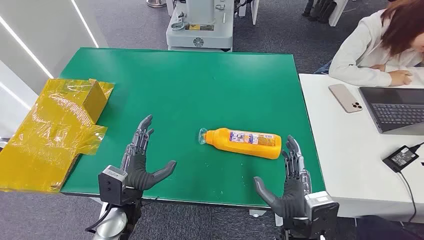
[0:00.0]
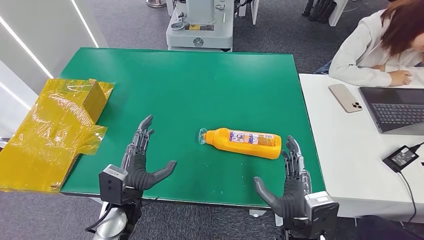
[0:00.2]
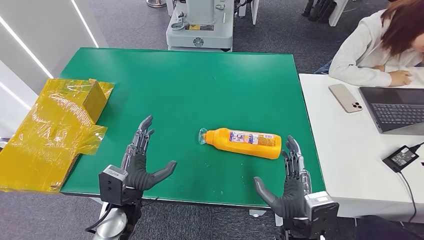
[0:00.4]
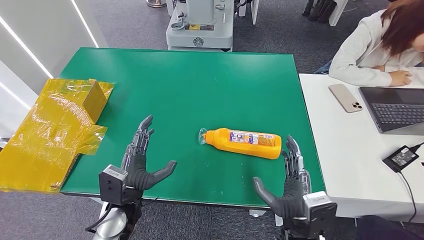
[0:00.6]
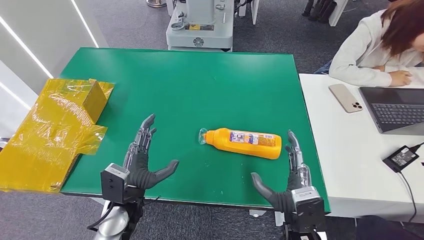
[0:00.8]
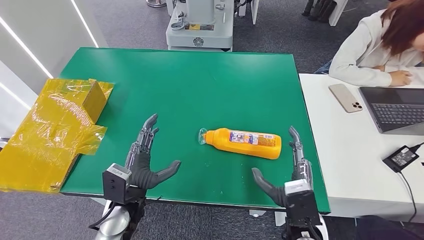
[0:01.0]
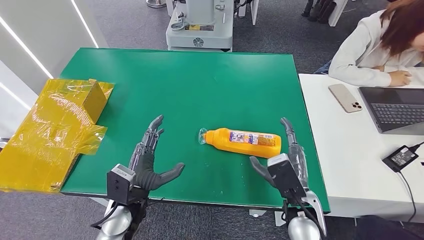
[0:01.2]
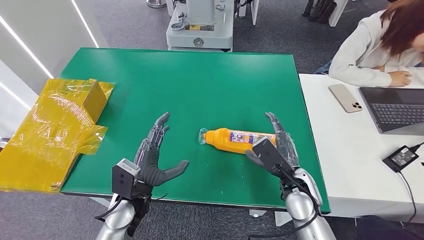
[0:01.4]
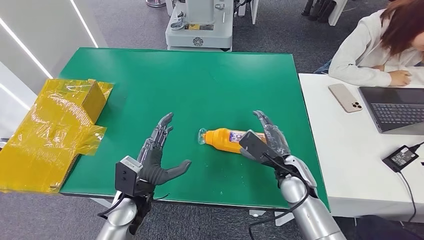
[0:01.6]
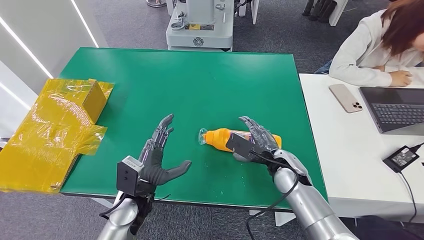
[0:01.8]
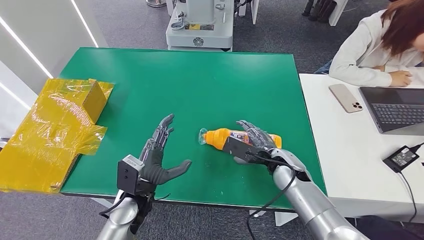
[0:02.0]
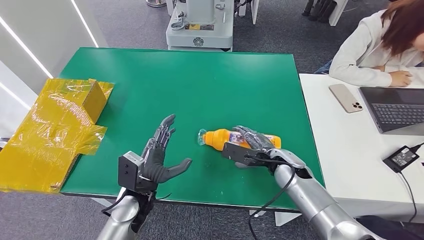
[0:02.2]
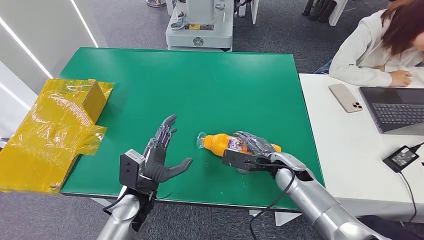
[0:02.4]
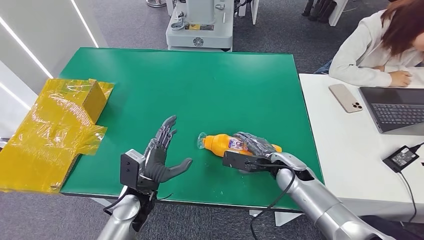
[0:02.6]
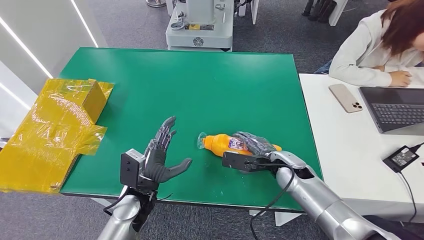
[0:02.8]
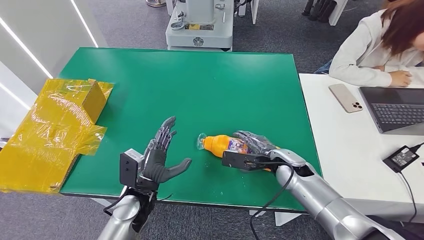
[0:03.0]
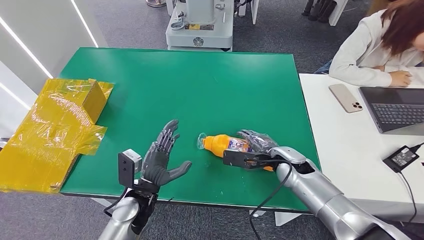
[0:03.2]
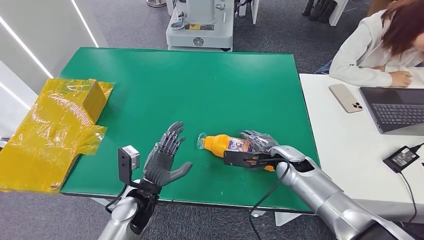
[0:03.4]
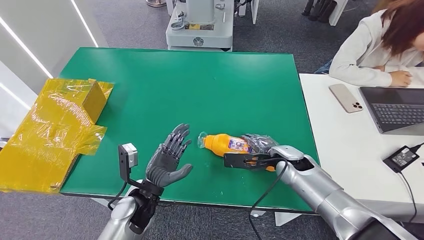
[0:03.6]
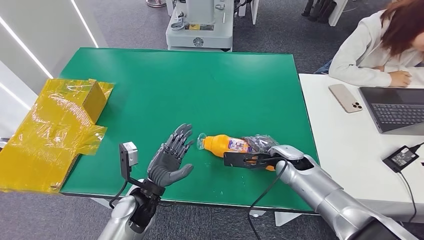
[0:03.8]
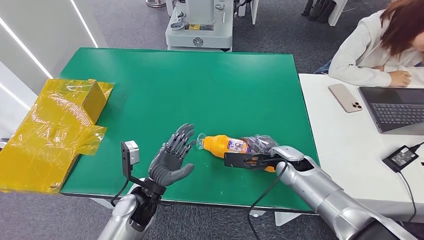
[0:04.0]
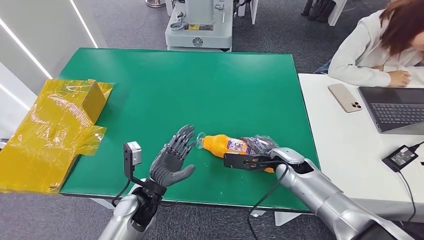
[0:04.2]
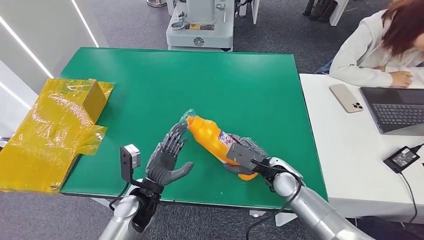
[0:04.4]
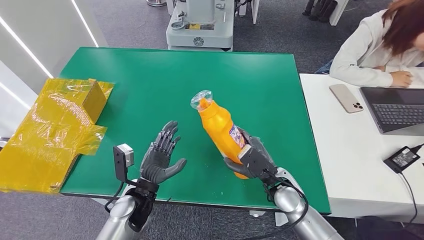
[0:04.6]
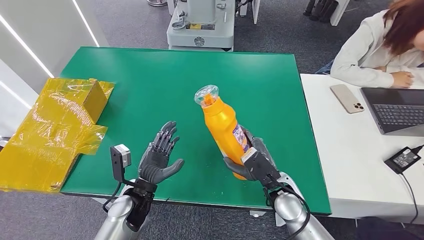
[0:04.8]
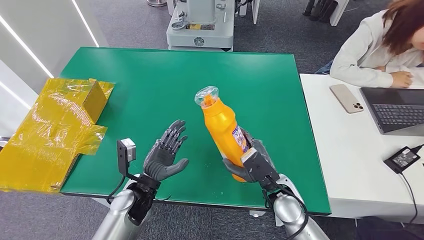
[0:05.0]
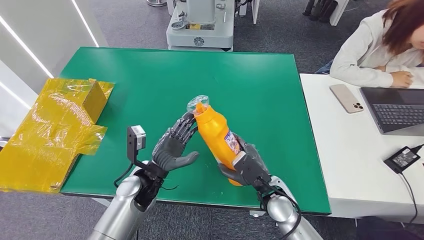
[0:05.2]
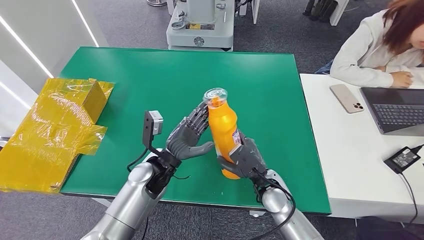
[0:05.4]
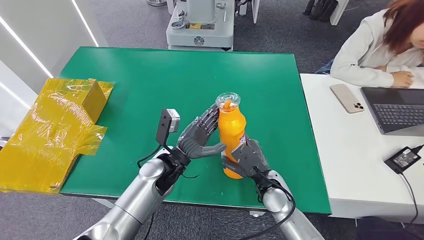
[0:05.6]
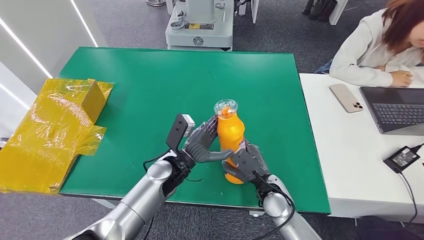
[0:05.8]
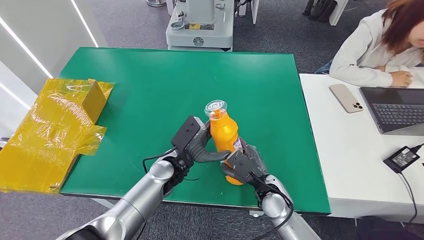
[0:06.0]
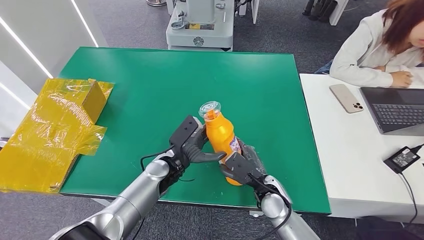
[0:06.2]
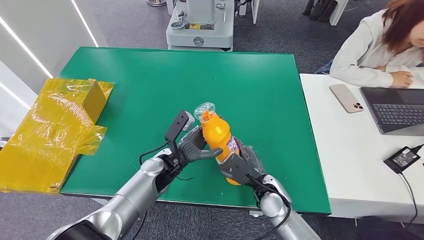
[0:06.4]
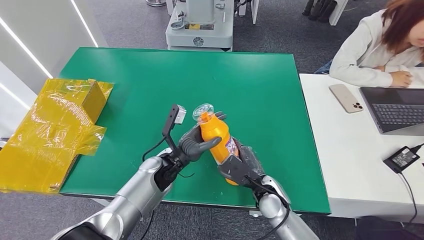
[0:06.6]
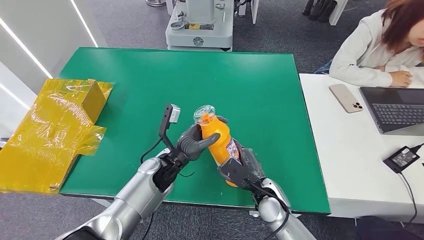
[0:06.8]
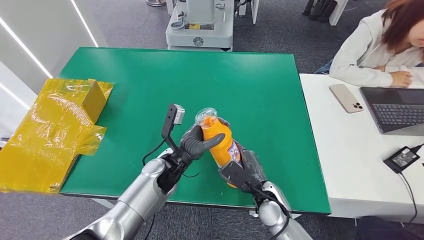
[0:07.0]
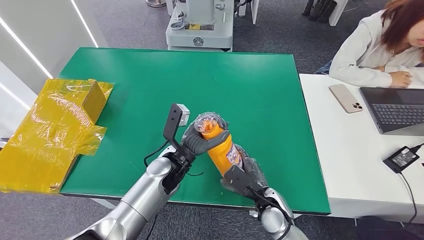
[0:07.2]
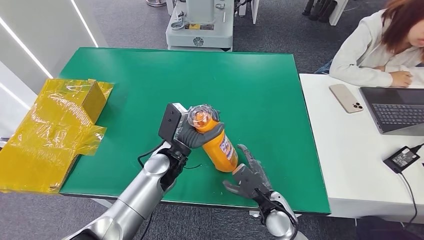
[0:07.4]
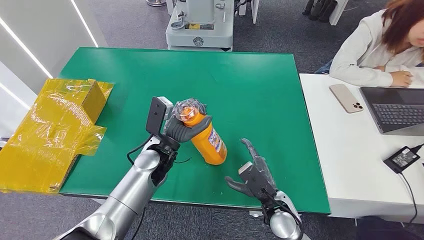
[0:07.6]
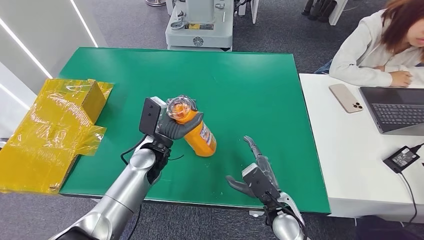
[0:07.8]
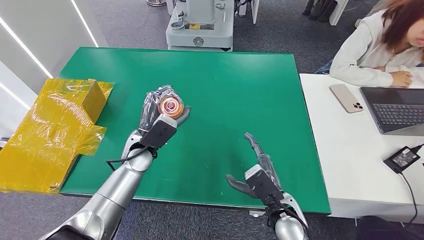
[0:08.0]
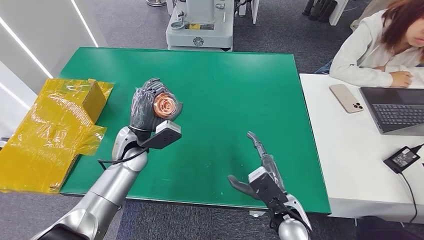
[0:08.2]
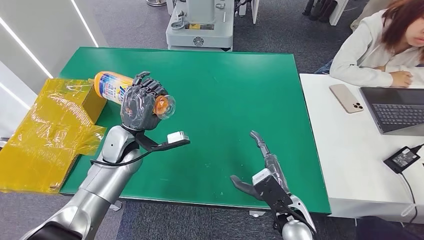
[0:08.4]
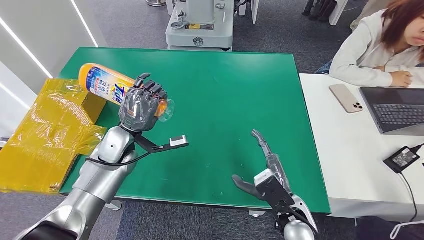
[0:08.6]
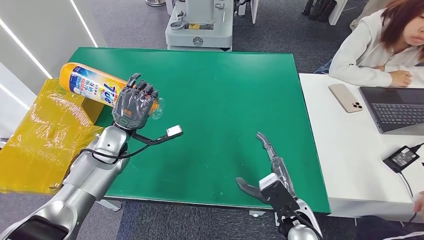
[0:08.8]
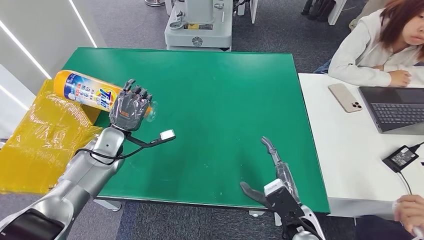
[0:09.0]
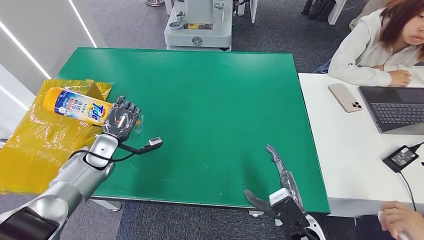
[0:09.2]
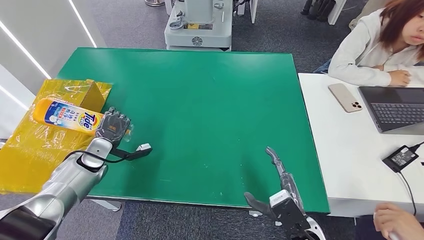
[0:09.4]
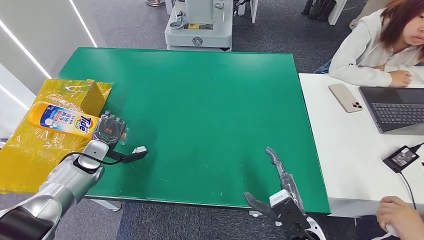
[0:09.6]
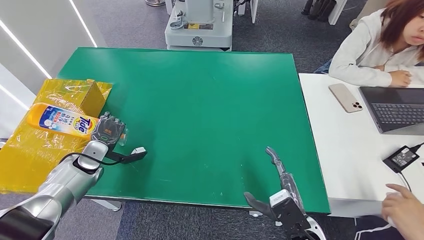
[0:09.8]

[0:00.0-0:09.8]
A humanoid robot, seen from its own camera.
Step, 0:00.0 to 0:05.2: Pick up the bottle from the table.
0:01.4 to 0:02.8: The right hand heads forward, covering approximately 5 cm.
0:04.2 to 0:05.6: The right hand heads backward and to the left, covering approximately 10 cm. Meanwhile the left hand shifts some 10 cm forward and to the right.
0:05.6 to 0:07.0: There are only small adjustments of the hands.
0:07.0 to 0:08.4: The left hand moves to the left, approximately 10 cm. Meanwhile the right hand ends up some 5 cm from where it was.

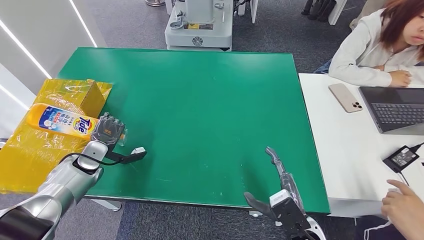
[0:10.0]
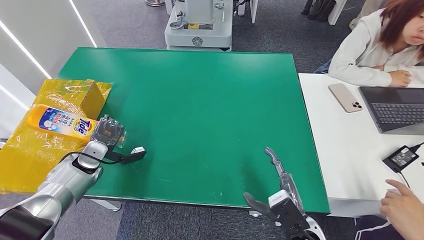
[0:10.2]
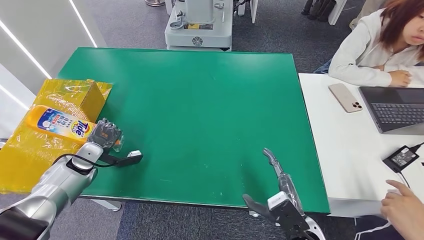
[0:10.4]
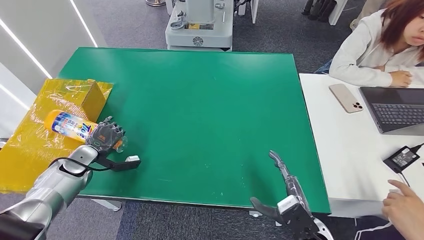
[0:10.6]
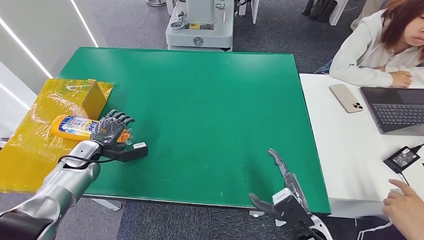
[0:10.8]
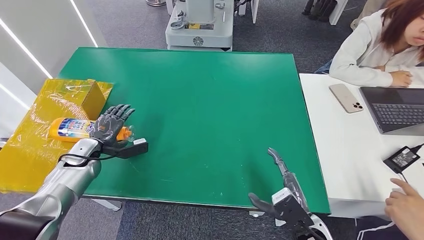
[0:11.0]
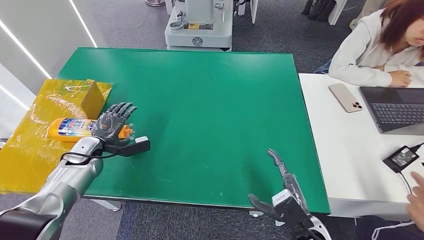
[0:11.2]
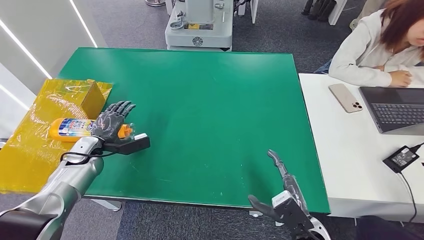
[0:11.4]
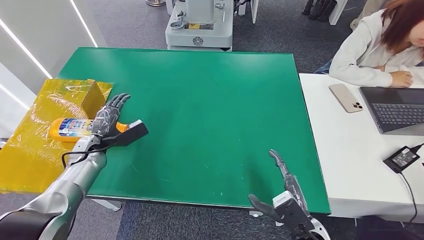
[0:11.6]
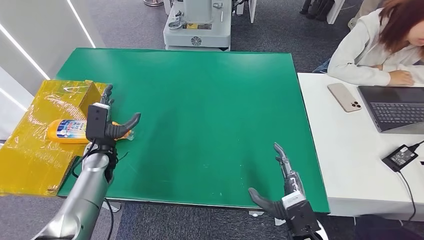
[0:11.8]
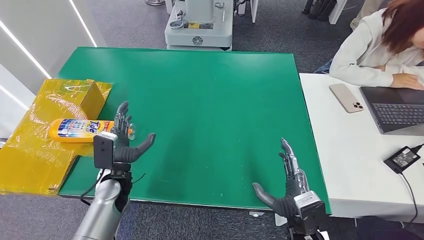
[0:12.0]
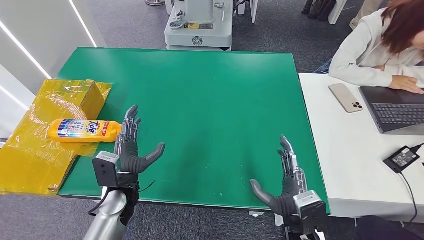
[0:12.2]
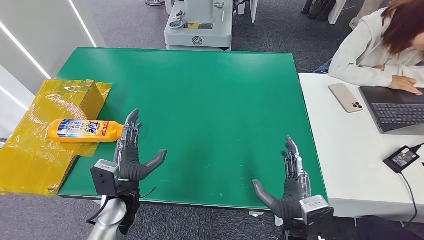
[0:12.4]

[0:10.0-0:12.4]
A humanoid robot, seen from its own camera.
Step, 0:10.0 to 0:12.4: Turn the bottle to the front side.
0:11.2 to 0:12.4: The right hand shifts by about 5 cm, while the left hand shifts roughly 20 cm to the right and backward.

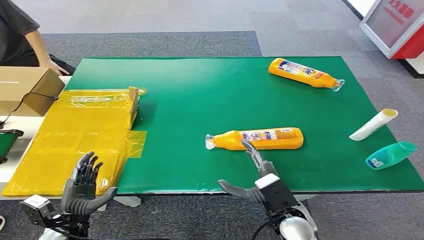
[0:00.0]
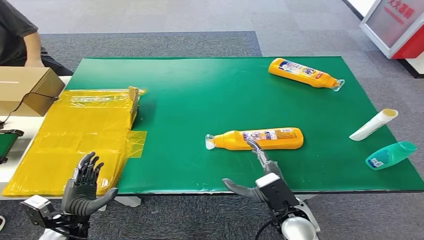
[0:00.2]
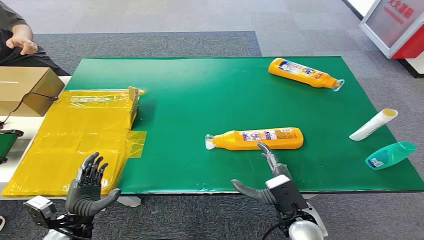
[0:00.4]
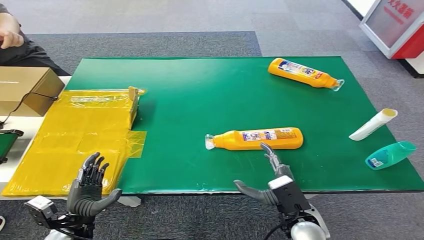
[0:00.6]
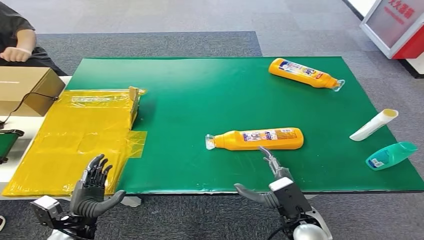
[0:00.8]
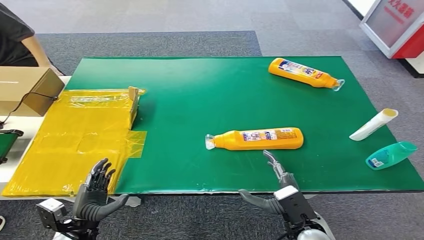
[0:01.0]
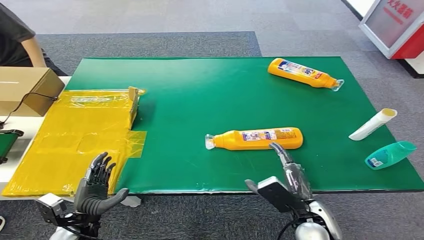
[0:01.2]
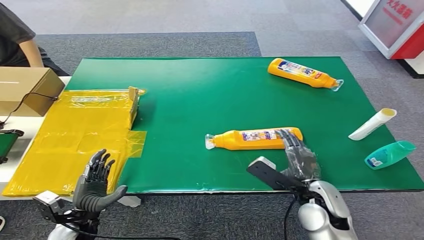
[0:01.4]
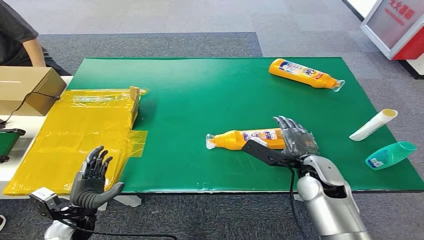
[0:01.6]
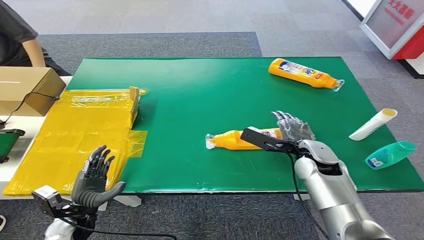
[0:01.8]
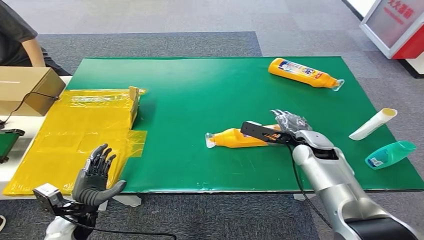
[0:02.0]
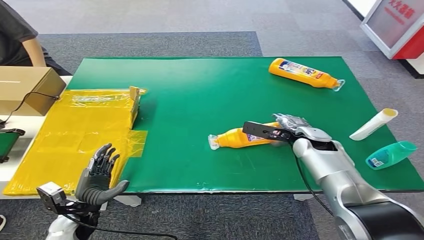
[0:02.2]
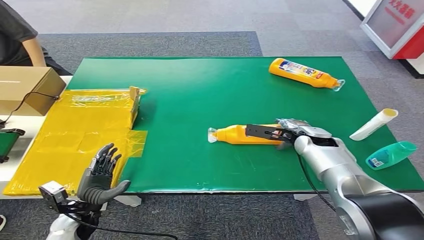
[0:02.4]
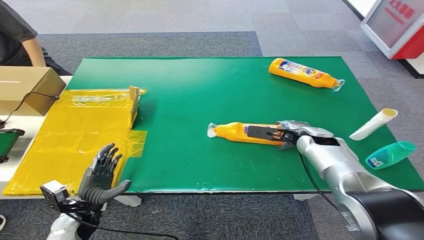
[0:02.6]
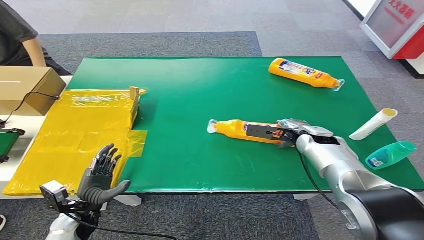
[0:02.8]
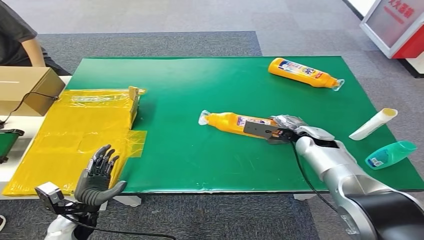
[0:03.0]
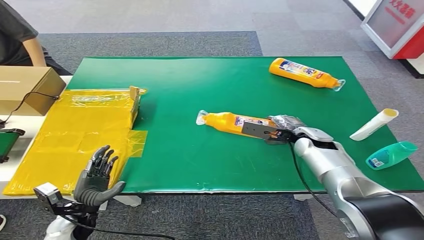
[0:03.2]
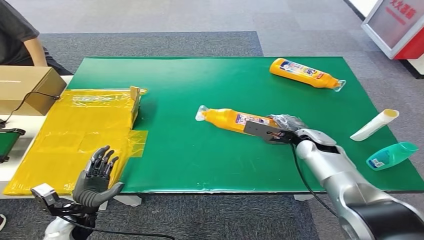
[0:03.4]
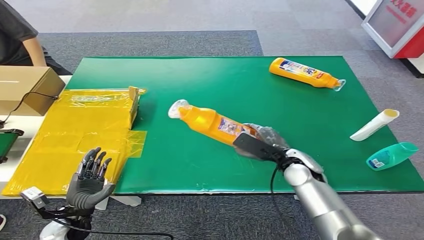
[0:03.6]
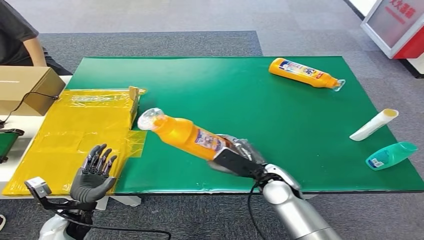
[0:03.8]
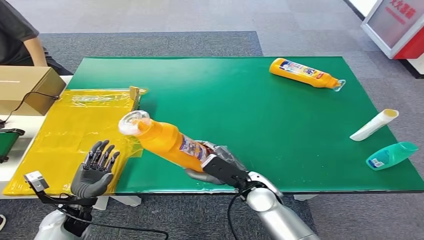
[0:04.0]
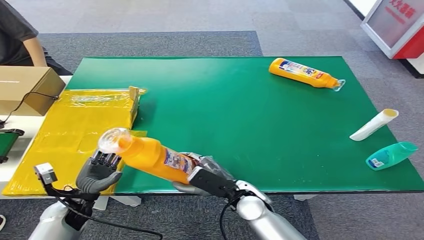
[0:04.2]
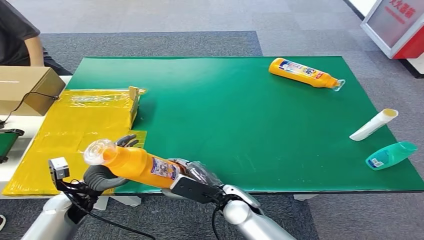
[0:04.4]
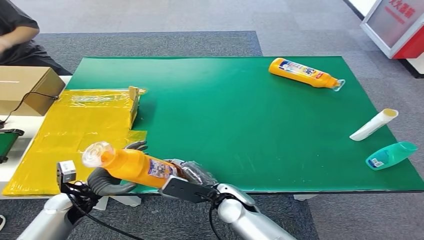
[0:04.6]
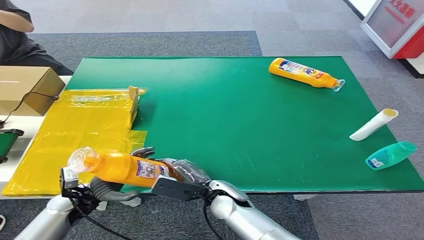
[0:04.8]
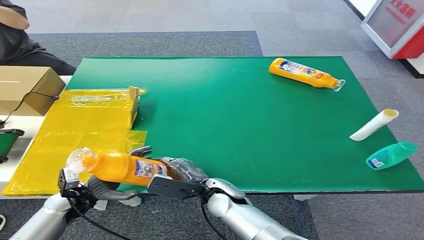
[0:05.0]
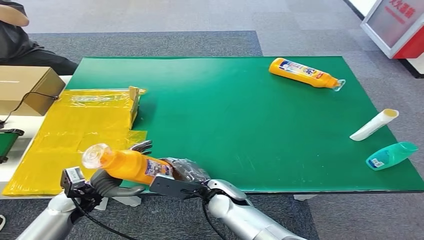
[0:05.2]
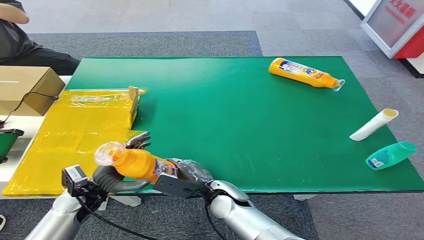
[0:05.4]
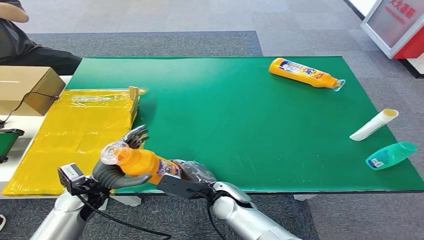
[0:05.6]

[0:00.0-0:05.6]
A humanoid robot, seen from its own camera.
Step, 0:00.0 to 0:03.6: Pick up the bottle from the table.
0:01.4 to 0:02.8: The right hand shifts approximately 20 cm forward.
0:02.8 to 0:04.2: The right hand goes about 25 cm to the left and backward.
0:04.2 to 0:05.6: The left hand goes approximately 5 cm upward. The right hand moves approximately 5 cm.
